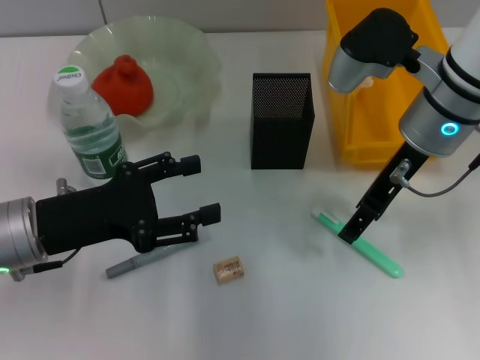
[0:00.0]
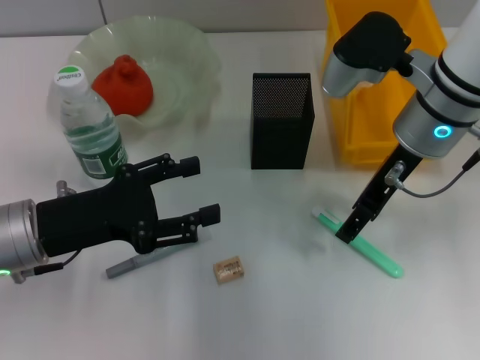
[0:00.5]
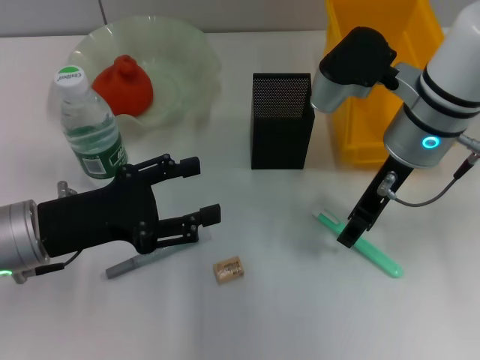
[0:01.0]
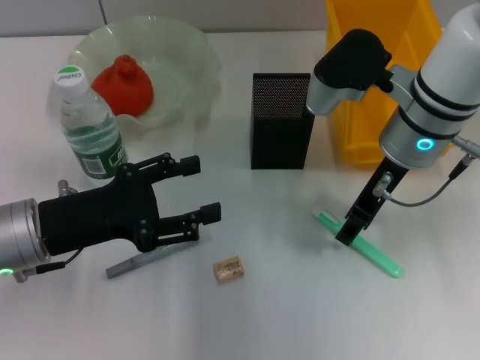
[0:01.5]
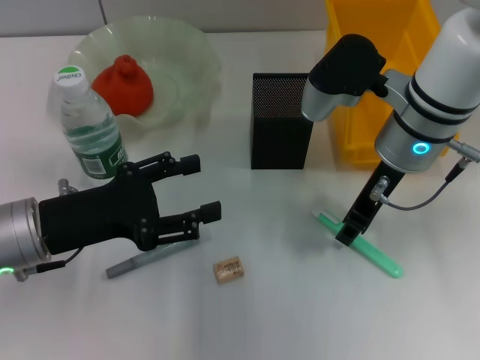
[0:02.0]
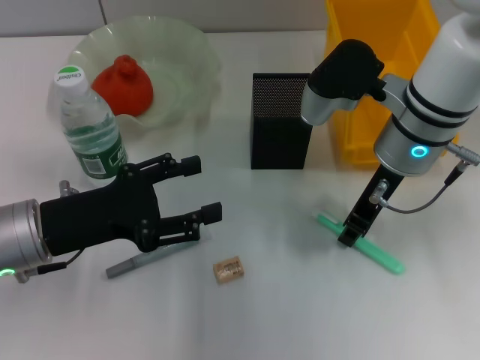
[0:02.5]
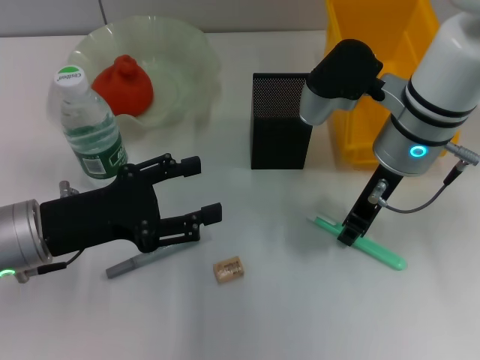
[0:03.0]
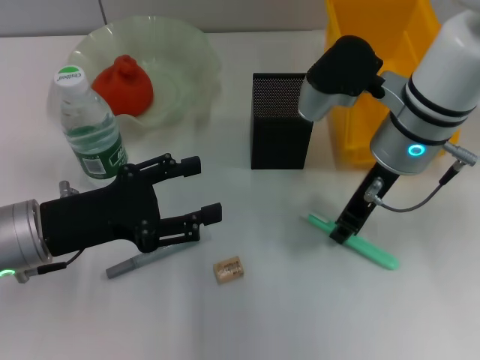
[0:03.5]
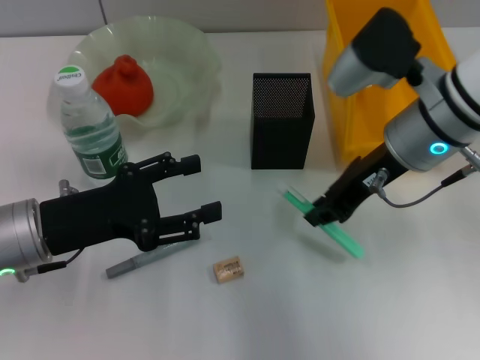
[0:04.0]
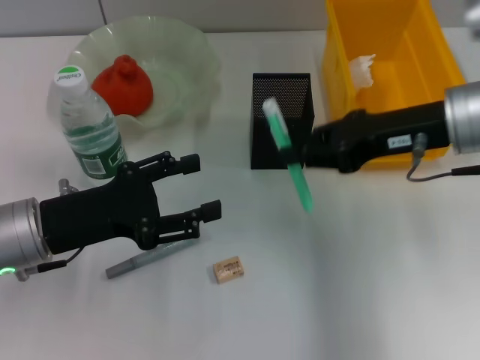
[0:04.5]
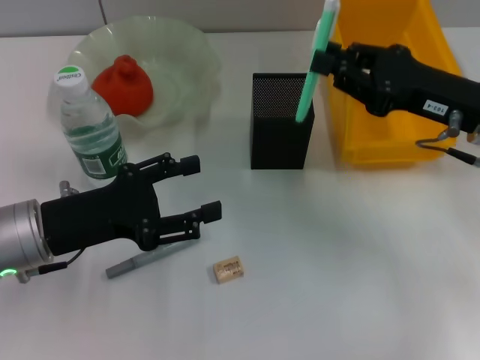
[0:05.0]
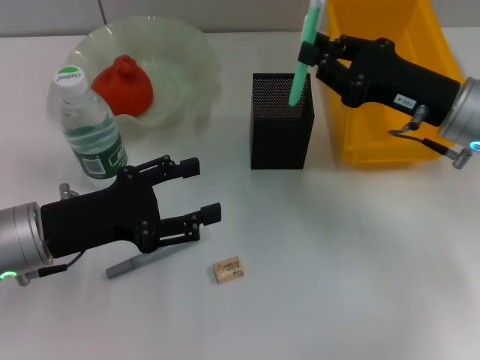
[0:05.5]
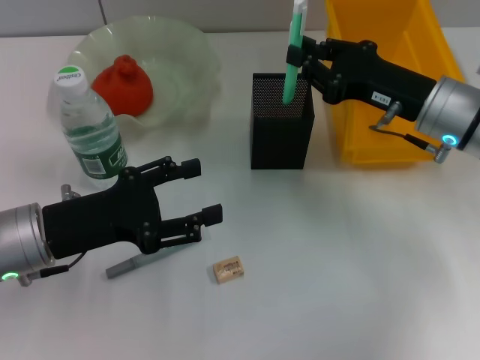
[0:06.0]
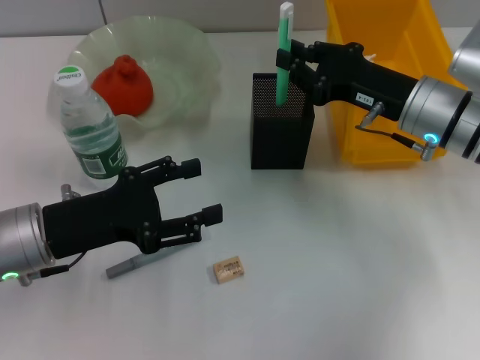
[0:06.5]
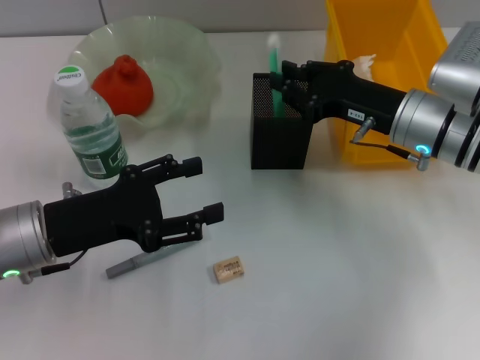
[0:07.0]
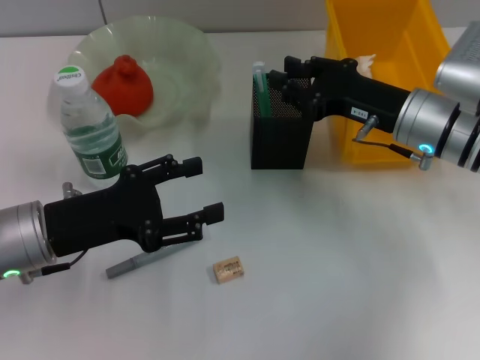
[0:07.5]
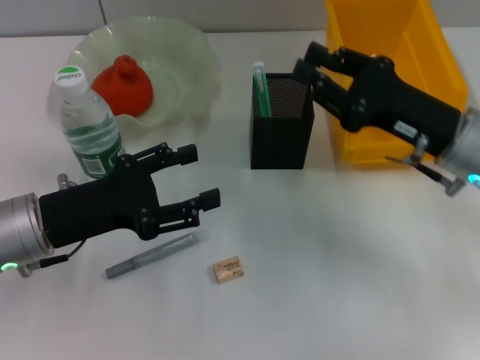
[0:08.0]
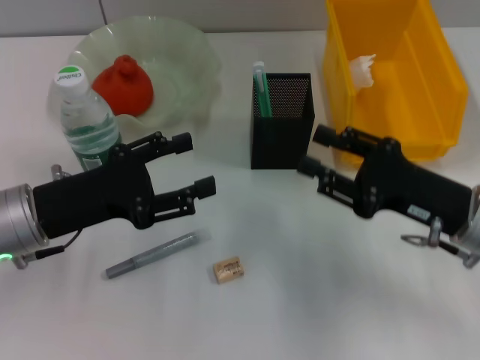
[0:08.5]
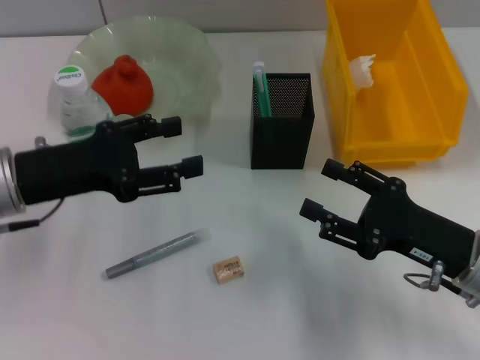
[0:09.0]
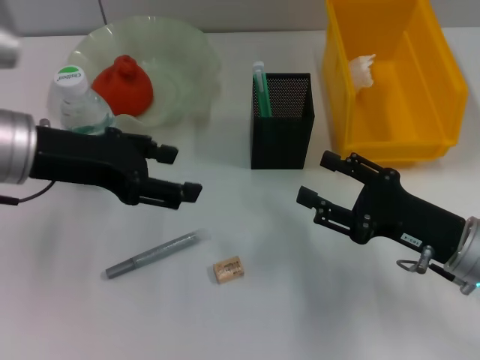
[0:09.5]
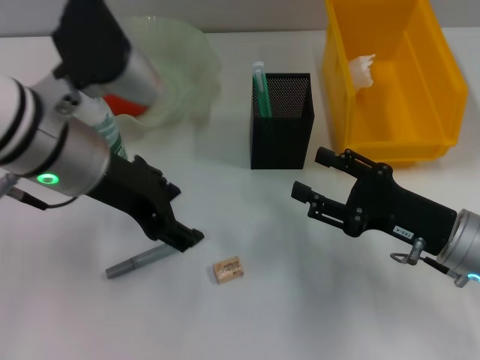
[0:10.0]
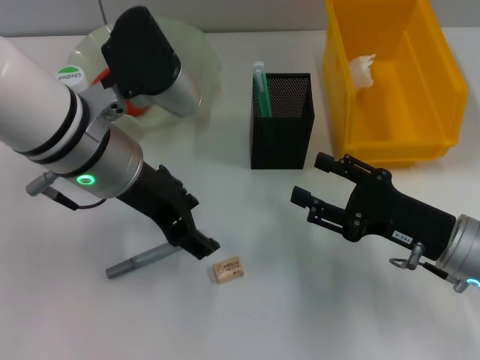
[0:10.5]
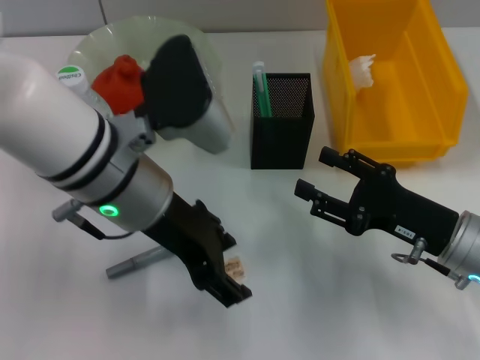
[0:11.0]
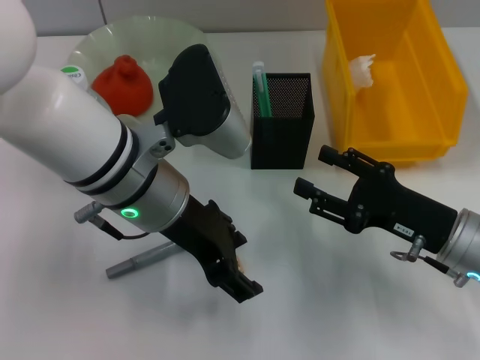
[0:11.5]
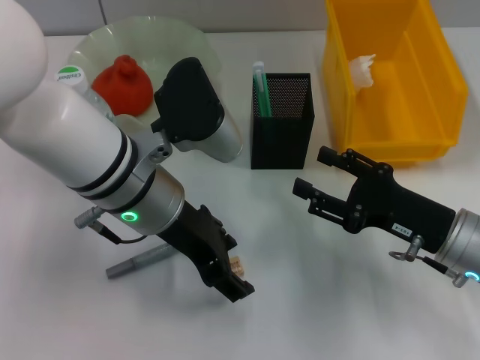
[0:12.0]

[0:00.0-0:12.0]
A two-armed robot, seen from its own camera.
Step, 0:00.0 to 0:02.5: Grab the blue utility knife with the right hand.
Step, 0:03.0 to 0:07.0: Place the blue utility knife into the pen holder with the right hand.
0:00.0 to 0:02.0: The right gripper closes.
0:04.0 to 0:06.0: The right gripper moves downward and to the right, some 10 cm.
0:06.0 to 0:08.0: The grippers move only a little.
0:08.0 to 0:10.0: The left gripper shifts roughly 15 cm upward and to the right; the right gripper moves downward and backward, approximately 10 cm, and opens.
0:10.0 to 0:12.0: The left gripper goes approximately 5 cm to the right.

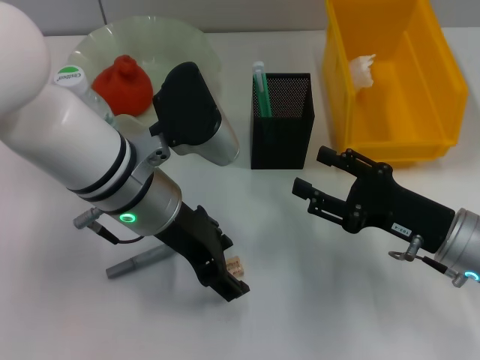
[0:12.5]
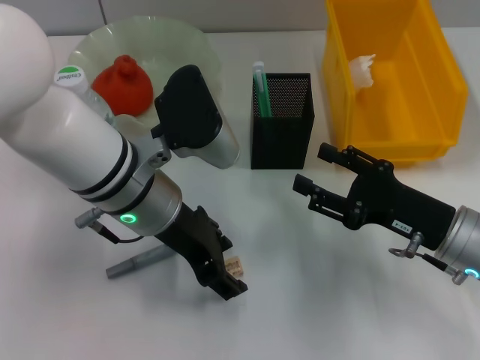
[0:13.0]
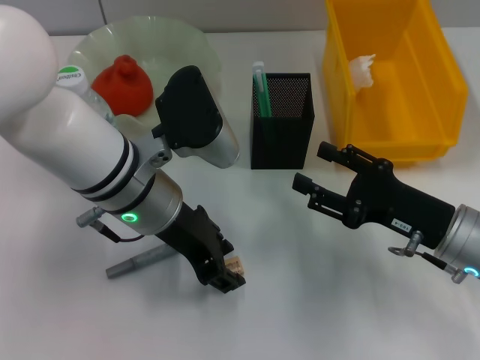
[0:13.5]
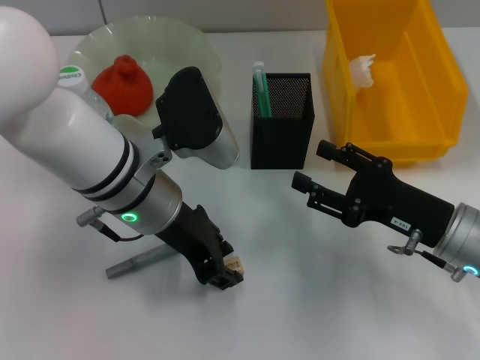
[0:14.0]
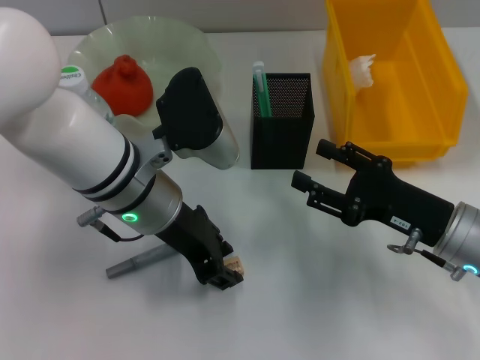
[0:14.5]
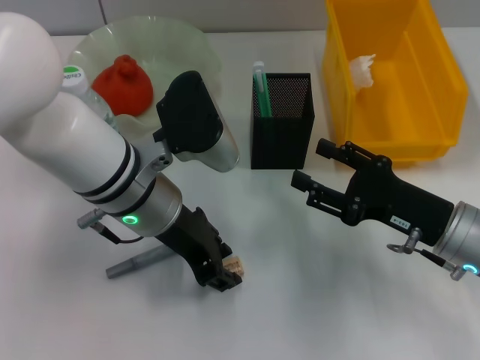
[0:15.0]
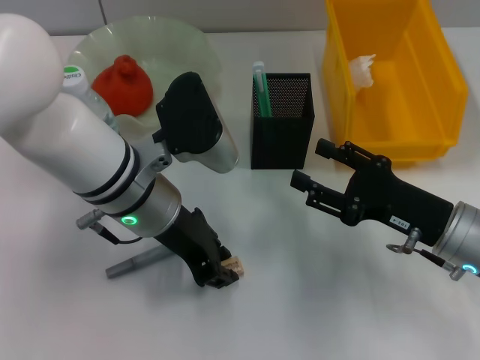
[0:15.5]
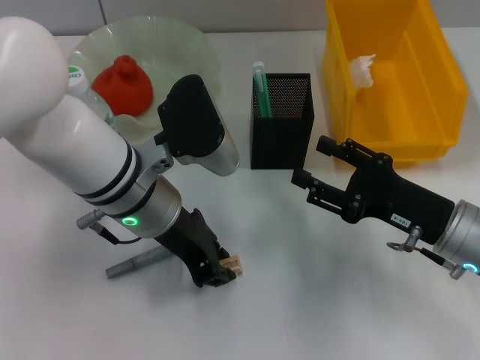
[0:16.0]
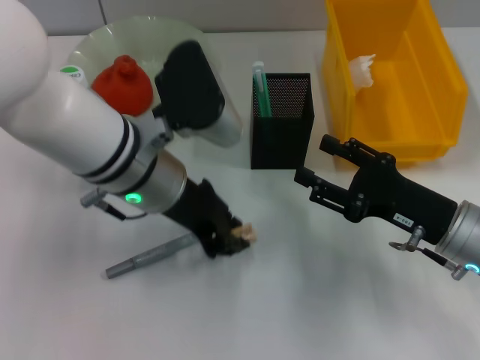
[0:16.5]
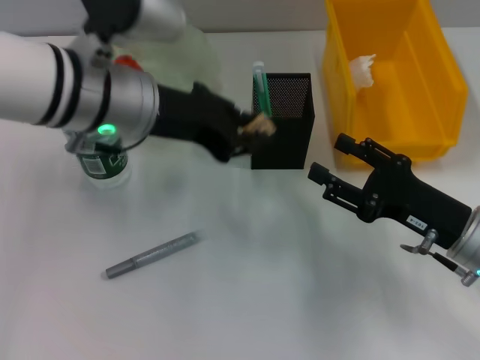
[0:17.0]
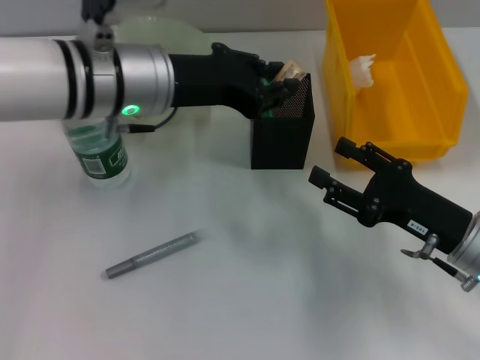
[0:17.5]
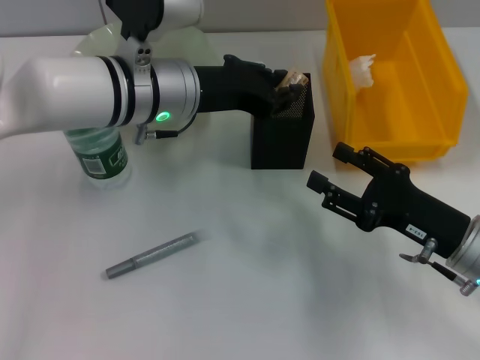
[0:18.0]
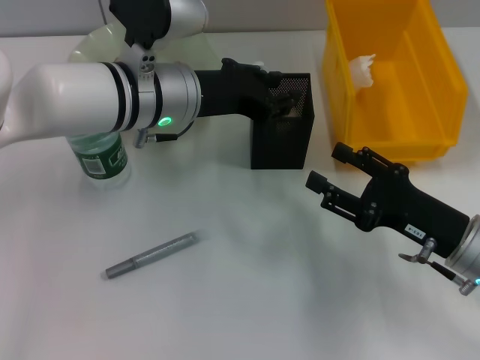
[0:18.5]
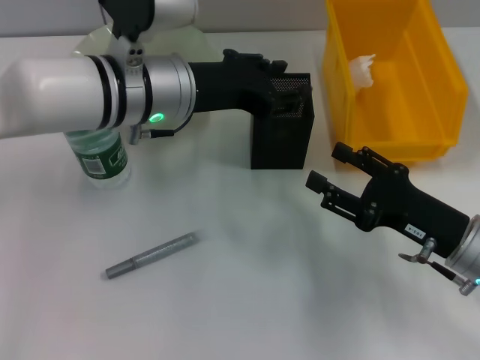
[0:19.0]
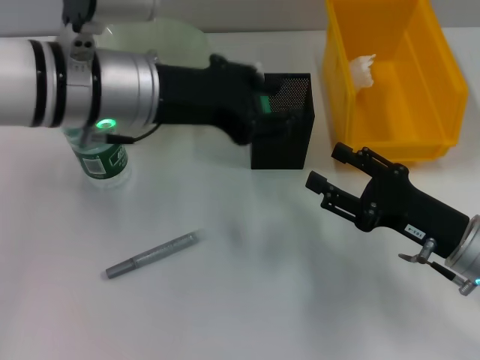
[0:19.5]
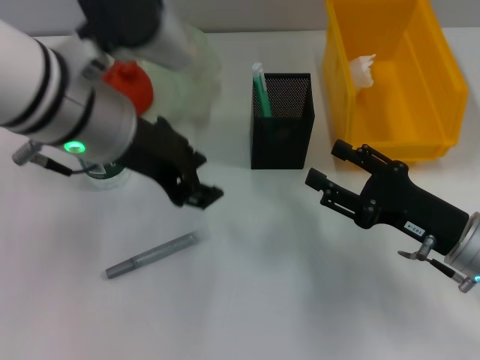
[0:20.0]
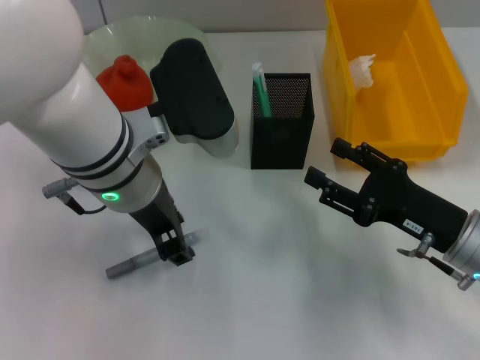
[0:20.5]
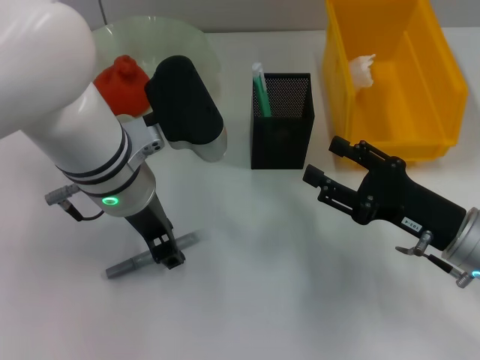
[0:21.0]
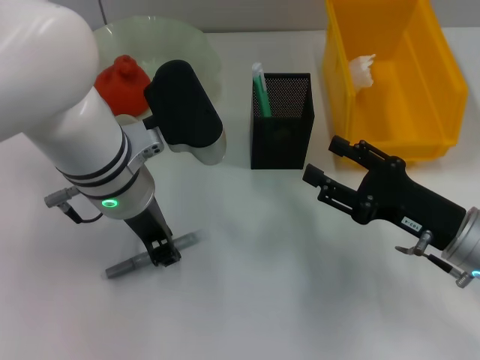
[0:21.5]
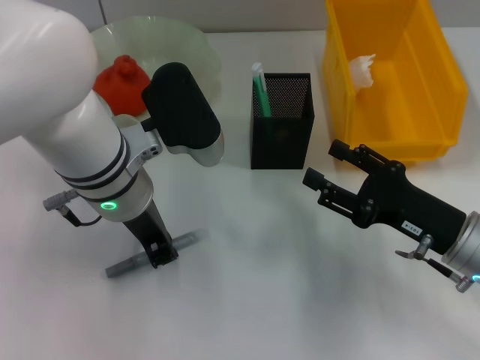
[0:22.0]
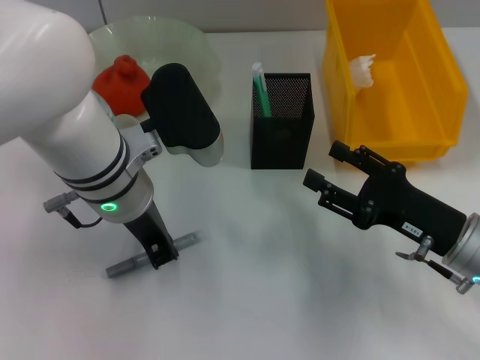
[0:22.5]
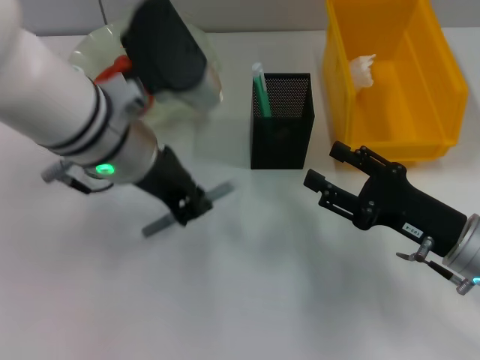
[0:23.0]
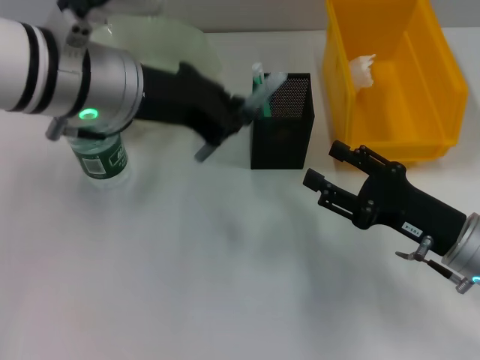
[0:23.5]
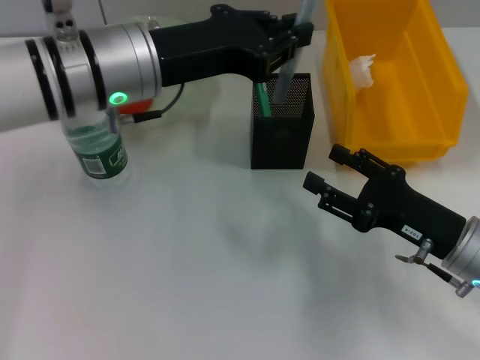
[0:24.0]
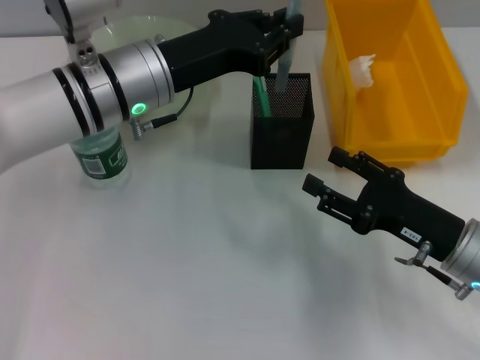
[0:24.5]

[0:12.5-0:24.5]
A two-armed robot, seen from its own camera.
Step, 0:12.5 to 0:16.0: Grab the eraser with the left hand.
Step, 0:16.5 to 0:19.0: Place the eraser into the pen holder with the left hand.
Step, 0:19.5 to 0:22.0: Grab the gray glue with the left hand.
0:12.5 to 0:14.5: The left gripper closes its fingers.
0:14.5 to 0:16.5: Neither gripper changes place.
0:16.5 to 0:18.5: The left gripper goes roughly 5 cm forward.
0:18.5 to 0:20.5: The left gripper goes some 5 cm backward, and opens.
0:20.5 to 0:22.5: The left gripper closes up.
0:22.5 to 0:24.5: The left gripper moves approximately 10 cm upward and comes back.

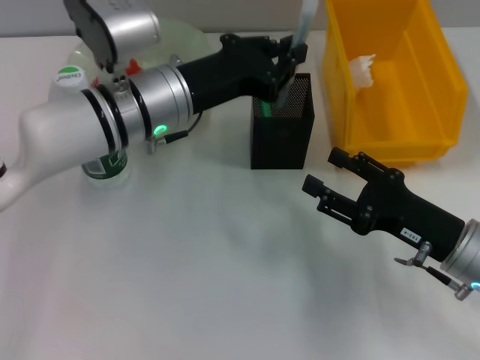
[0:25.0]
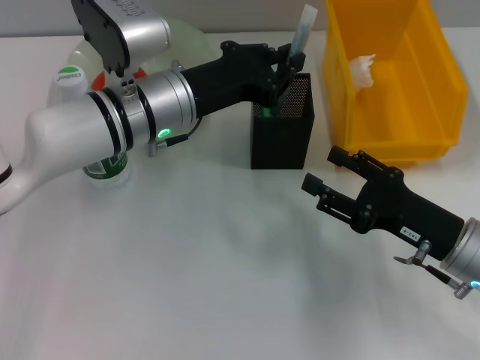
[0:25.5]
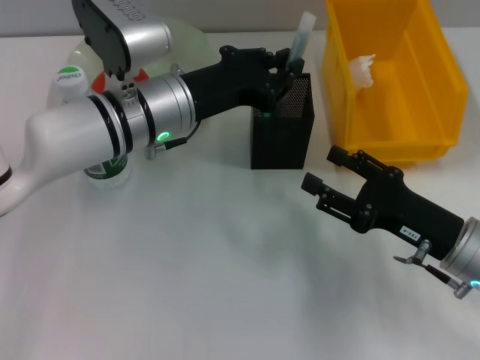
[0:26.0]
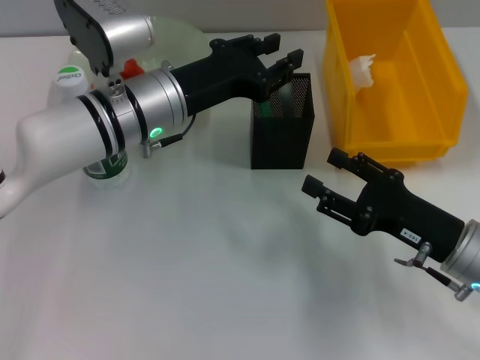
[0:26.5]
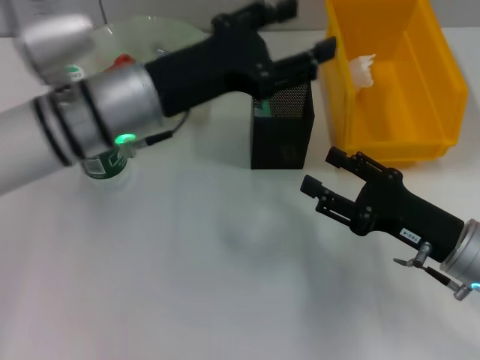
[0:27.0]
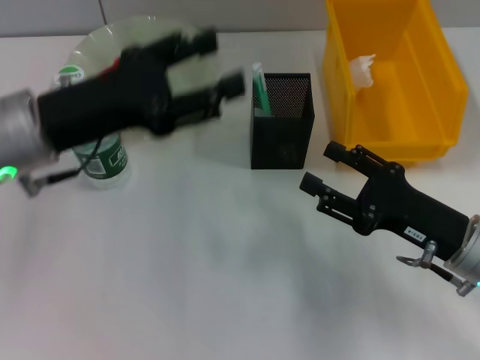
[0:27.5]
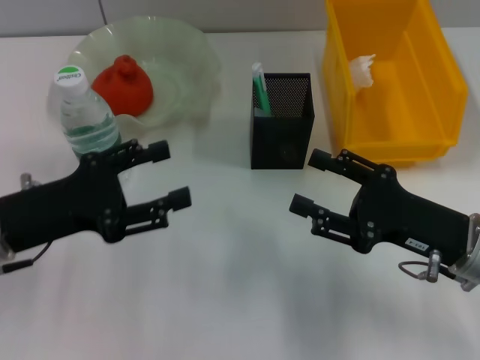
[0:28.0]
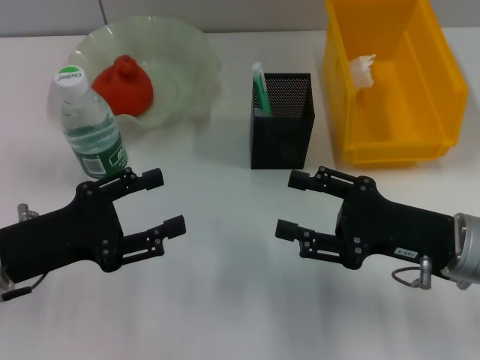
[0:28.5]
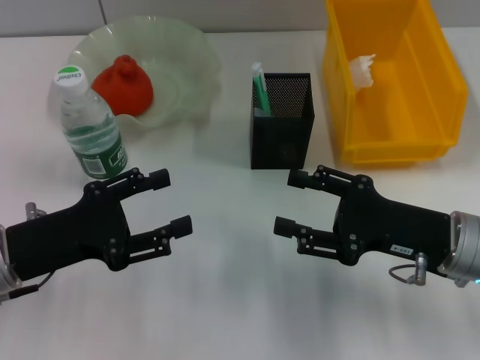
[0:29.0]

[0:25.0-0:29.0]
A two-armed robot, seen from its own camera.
0:25.0 to 0:27.0: The left gripper changes place by some 5 cm, and opens up.
0:27.0 to 0:29.0: The left gripper shifts roughly 15 cm to the left, backward and downward.
